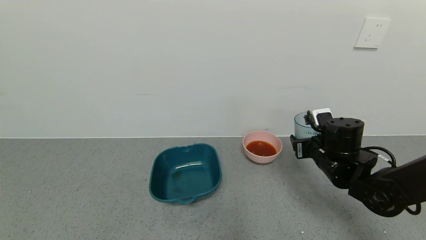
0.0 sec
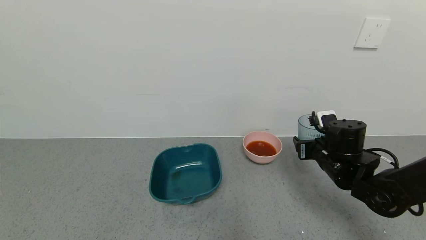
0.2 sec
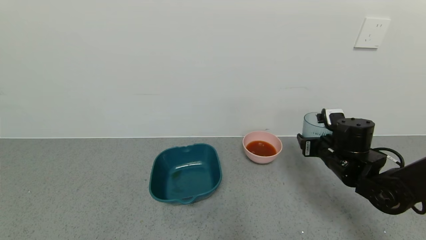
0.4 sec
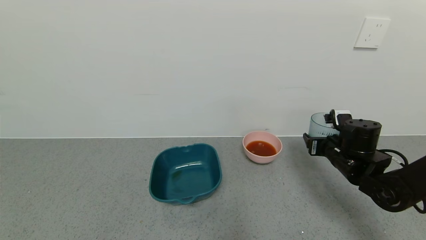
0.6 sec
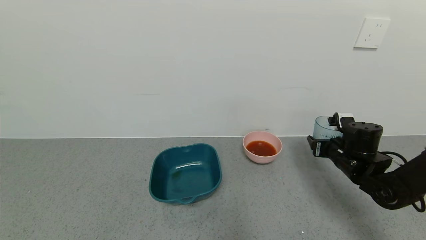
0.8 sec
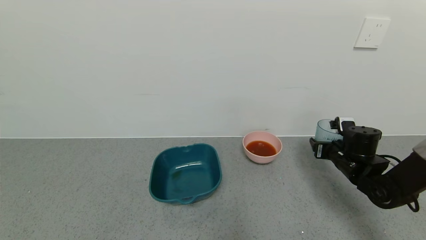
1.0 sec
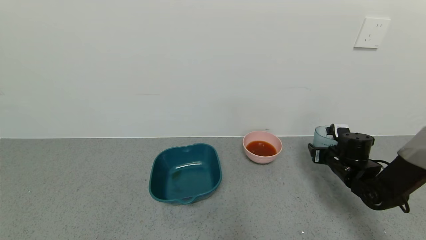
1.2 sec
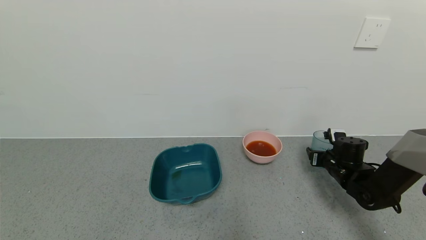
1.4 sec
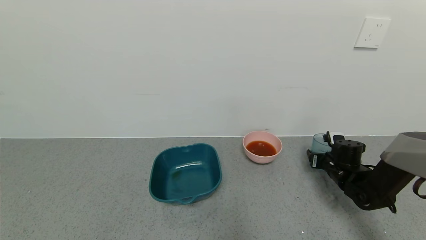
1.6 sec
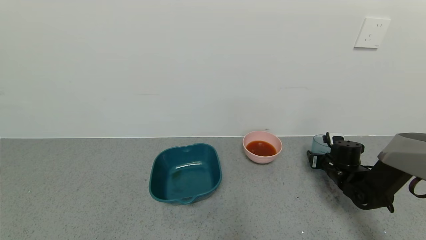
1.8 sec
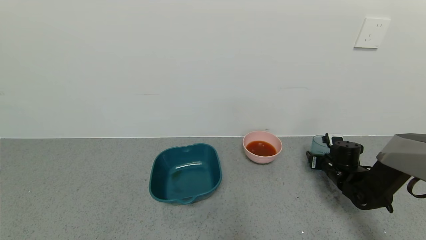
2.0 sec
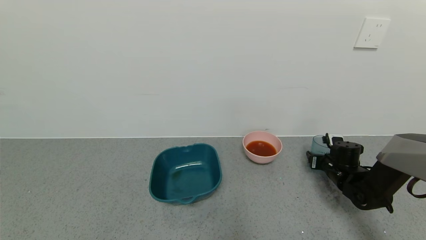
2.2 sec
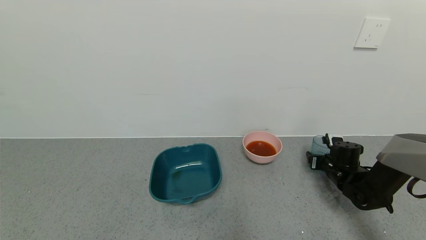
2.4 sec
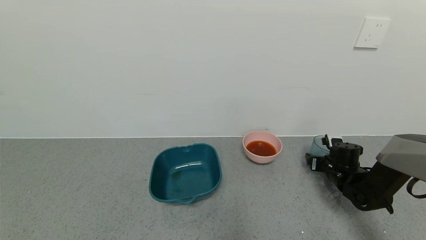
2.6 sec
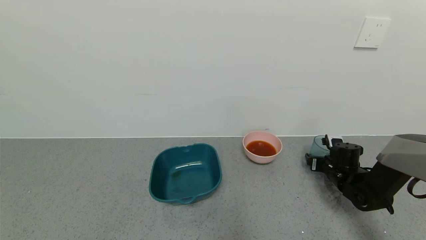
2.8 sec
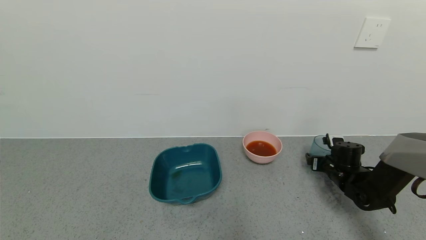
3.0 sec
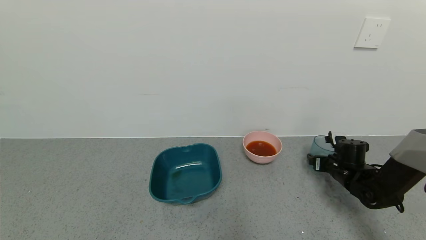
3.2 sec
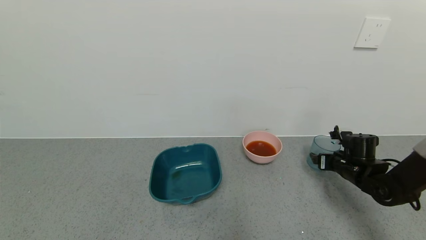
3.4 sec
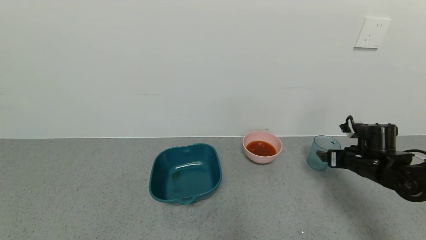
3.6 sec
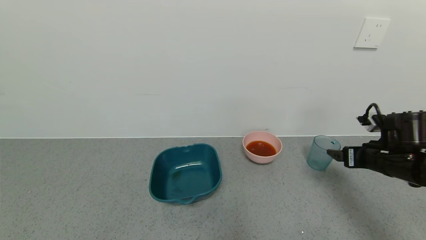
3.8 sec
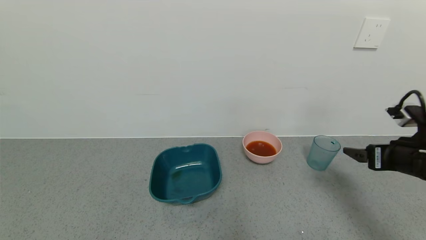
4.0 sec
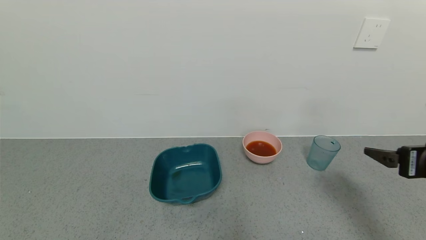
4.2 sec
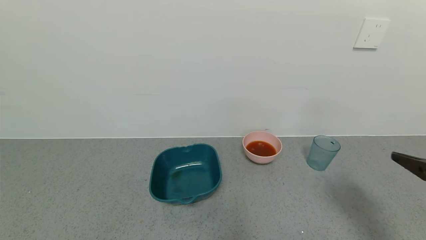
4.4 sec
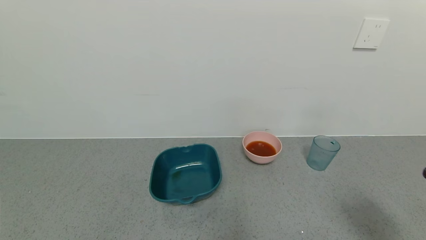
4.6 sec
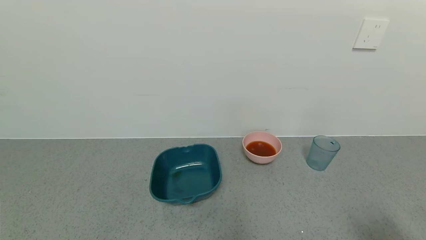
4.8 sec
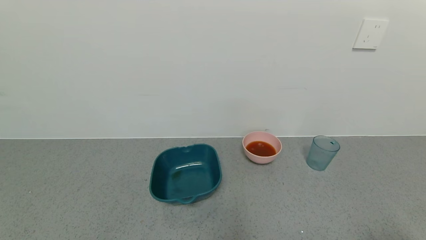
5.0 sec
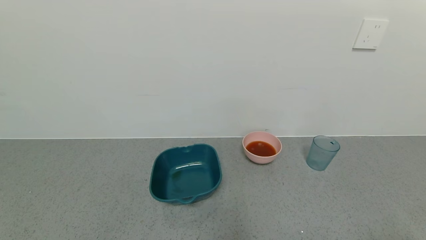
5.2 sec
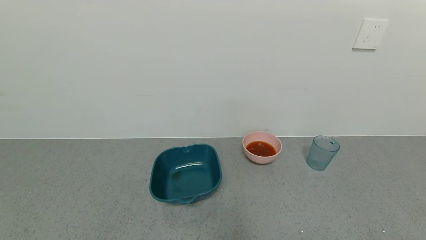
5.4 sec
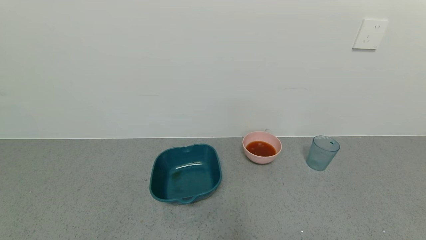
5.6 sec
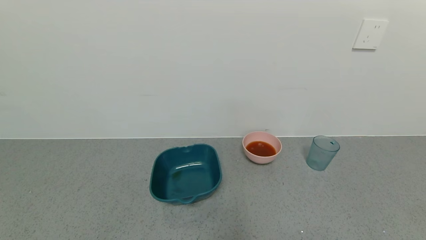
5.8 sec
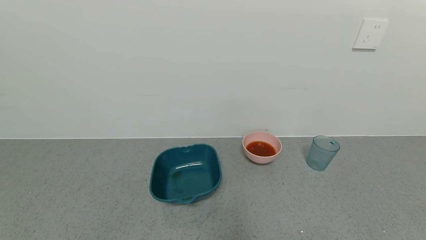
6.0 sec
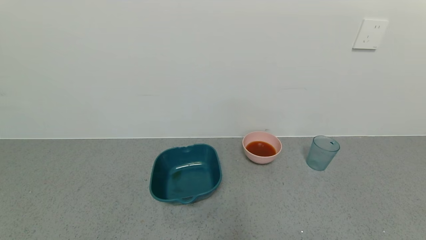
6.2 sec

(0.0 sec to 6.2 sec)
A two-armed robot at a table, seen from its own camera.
Task of the whole recording: use a gripper to pick up the cup and pour the liquid into a bowl or tray.
Step, 0.0 sec - 2.4 sec: Place blue cup with tea on the table with right gripper.
0.0 sec - 1.6 sec: The right gripper travels downward, to the right and forward by roughly 15 cm.
1.6 sec - 3.2 sec: The right gripper opens.
3.2 sec - 4.6 sec: The right gripper goes roughly 35 cm backward and upward.
4.6 sec - 6.2 sec: The right gripper moves backward and downward, about 15 cm.
